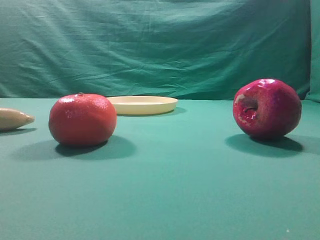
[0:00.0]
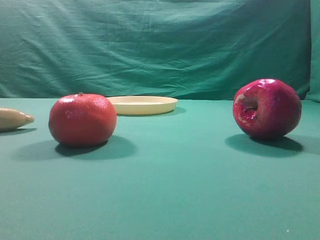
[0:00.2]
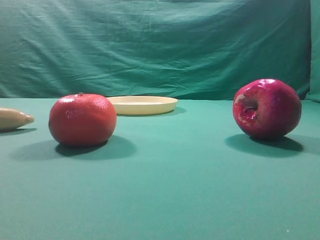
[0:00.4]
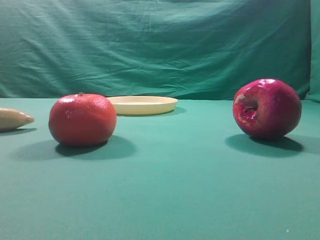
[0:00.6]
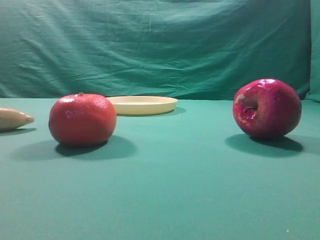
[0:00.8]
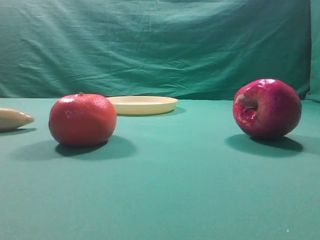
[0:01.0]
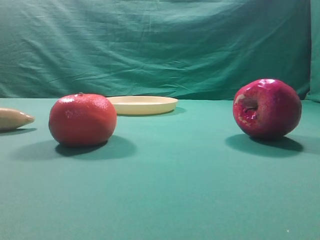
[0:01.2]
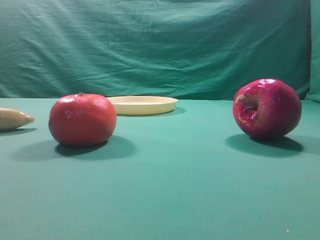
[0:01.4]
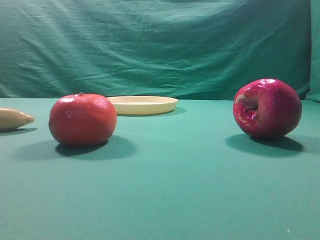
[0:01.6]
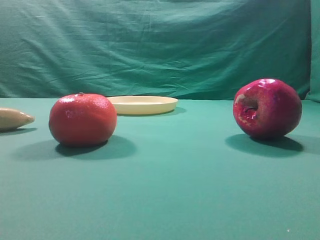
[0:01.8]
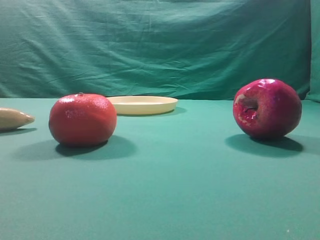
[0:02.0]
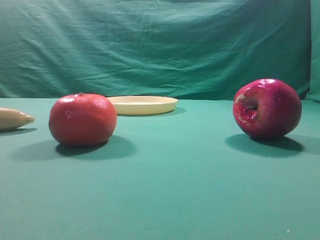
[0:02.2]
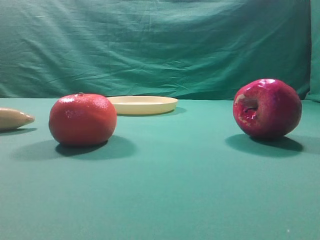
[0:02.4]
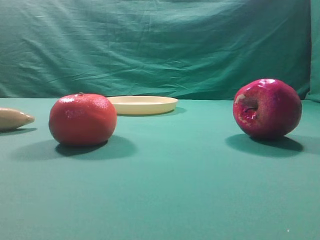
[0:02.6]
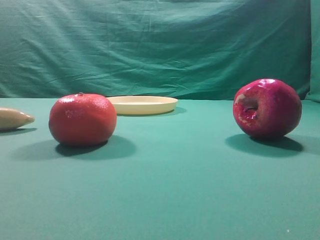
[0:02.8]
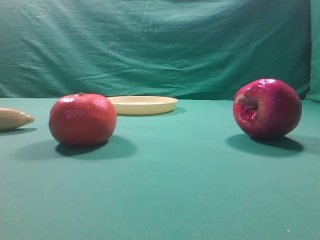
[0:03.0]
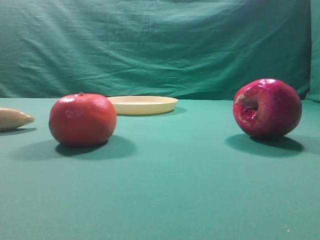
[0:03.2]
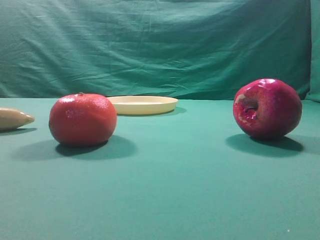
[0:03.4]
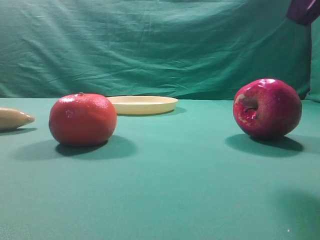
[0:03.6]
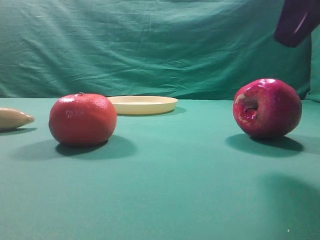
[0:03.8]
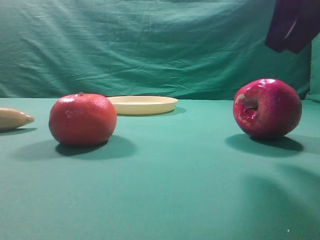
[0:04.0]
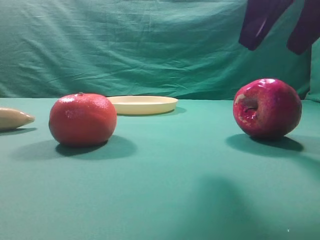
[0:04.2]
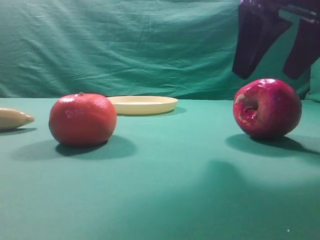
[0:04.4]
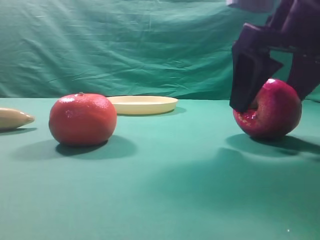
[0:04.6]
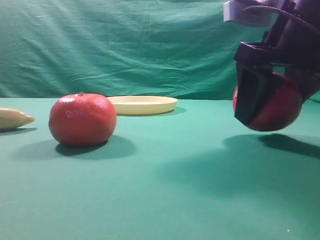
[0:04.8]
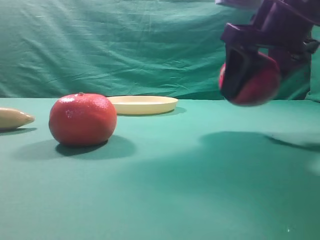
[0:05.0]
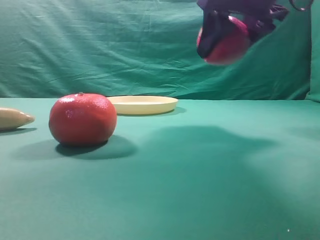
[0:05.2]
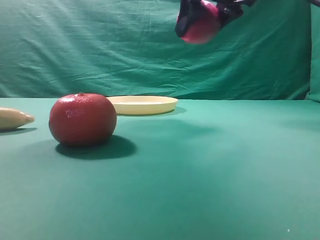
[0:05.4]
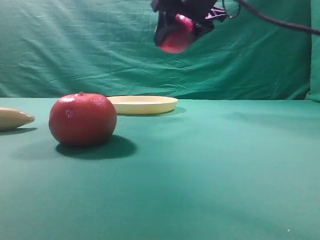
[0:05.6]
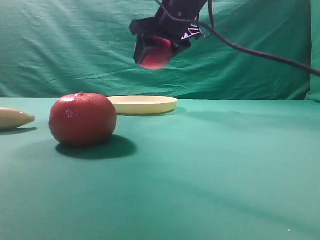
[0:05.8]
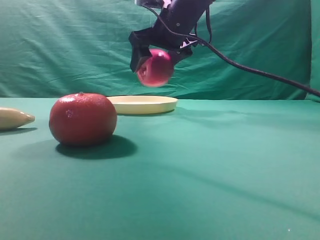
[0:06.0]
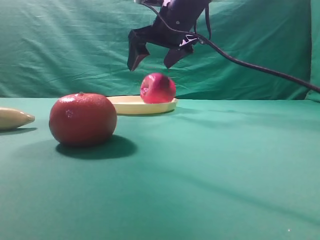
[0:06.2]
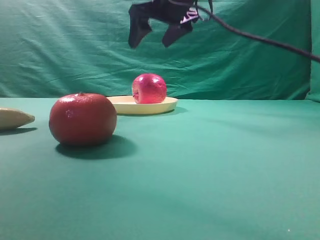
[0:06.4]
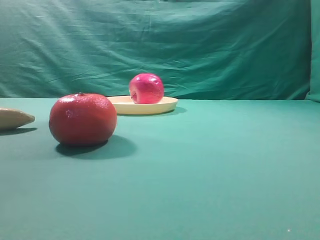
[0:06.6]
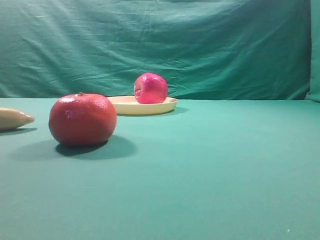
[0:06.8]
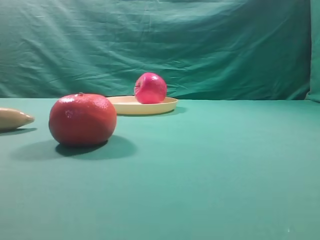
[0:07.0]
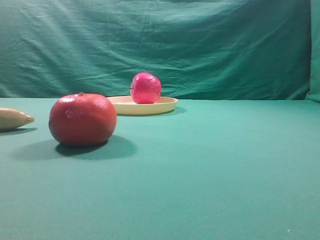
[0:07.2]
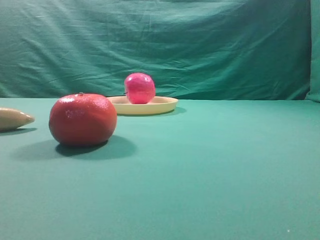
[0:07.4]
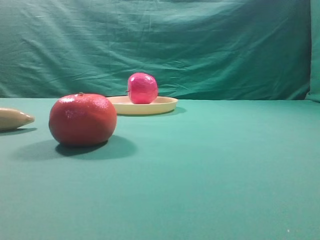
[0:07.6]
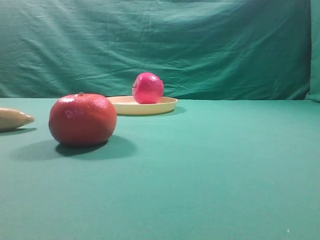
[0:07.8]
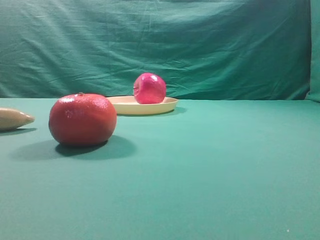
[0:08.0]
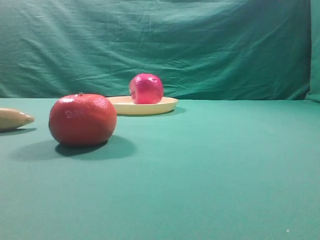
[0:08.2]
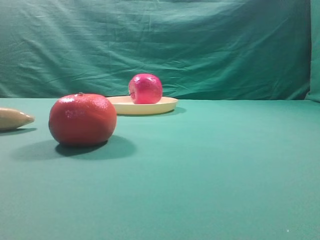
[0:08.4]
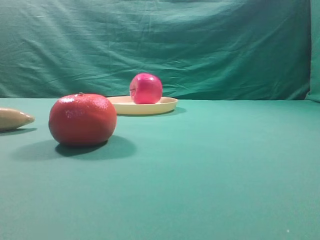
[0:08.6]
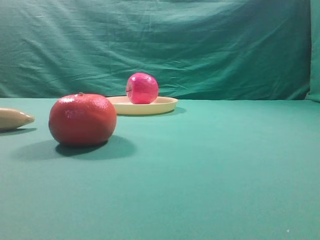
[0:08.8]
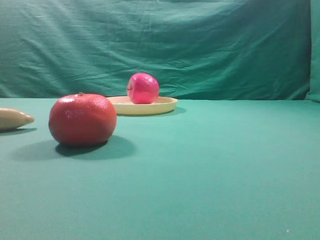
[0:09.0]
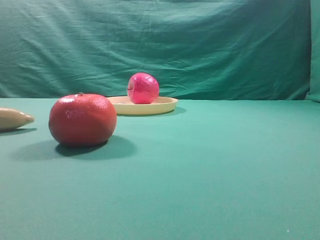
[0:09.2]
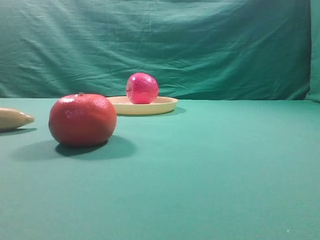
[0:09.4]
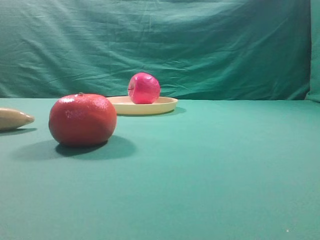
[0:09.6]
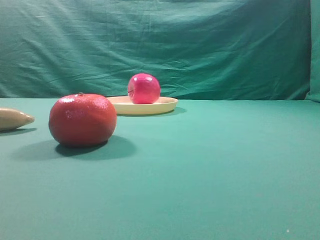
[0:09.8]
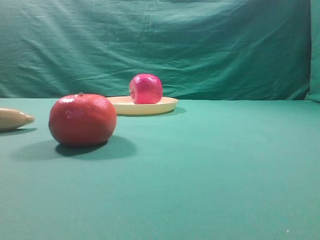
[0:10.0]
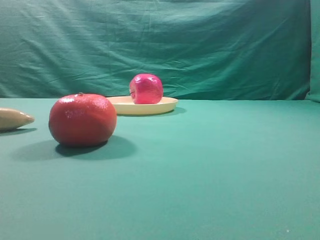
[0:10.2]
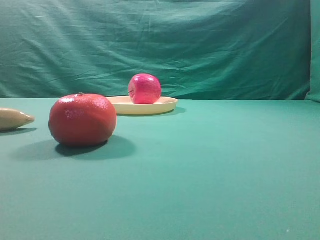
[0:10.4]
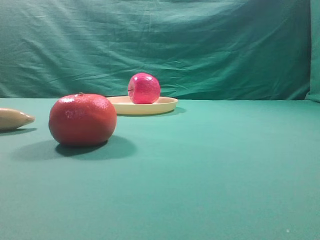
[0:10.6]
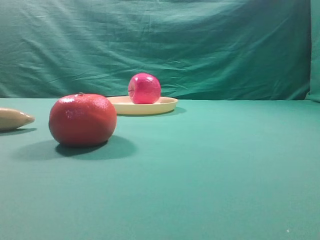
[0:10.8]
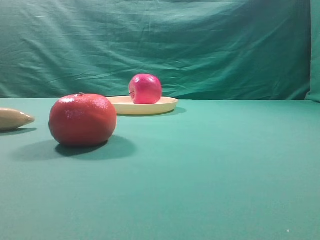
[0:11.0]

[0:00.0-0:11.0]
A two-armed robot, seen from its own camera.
Task of the whole recording: grasp the apple and place it into the yellow plate.
Step, 0:00.0 to 0:04.8: Grasp the fruit that can keep the doctor away.
Step, 0:05.2 to 0:06.2: Place the picked object into the yellow plate.
